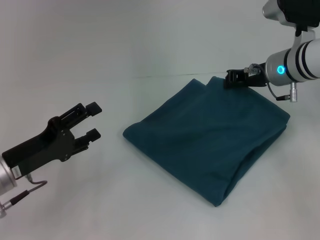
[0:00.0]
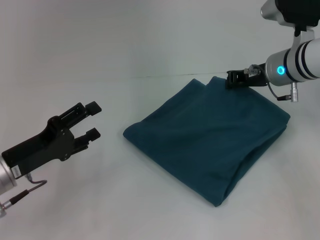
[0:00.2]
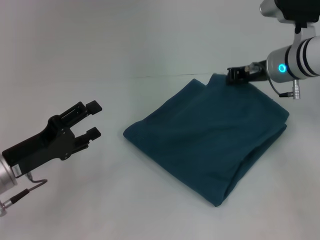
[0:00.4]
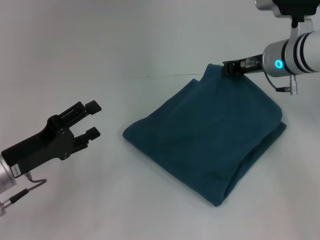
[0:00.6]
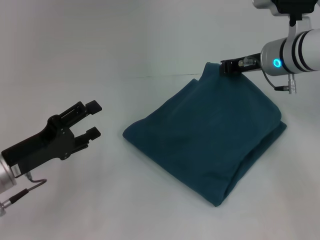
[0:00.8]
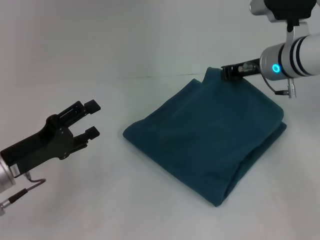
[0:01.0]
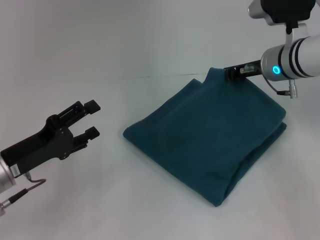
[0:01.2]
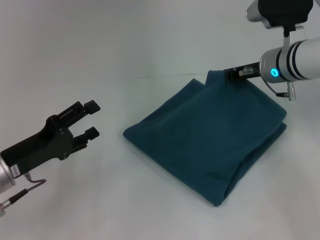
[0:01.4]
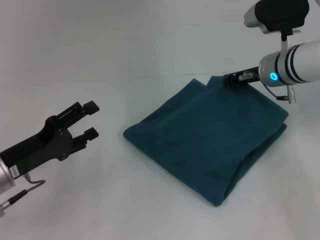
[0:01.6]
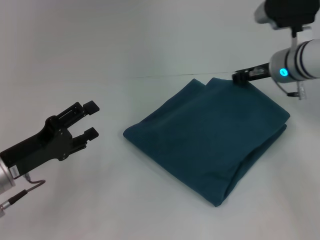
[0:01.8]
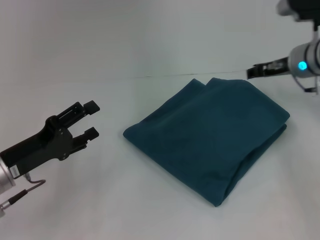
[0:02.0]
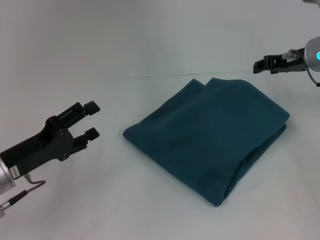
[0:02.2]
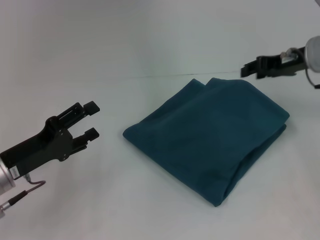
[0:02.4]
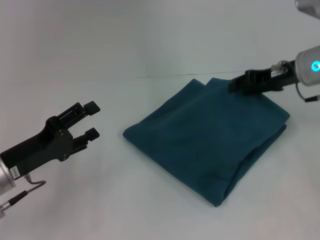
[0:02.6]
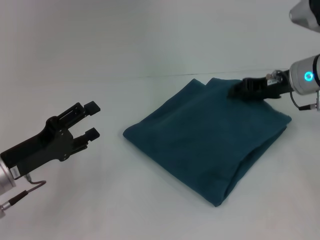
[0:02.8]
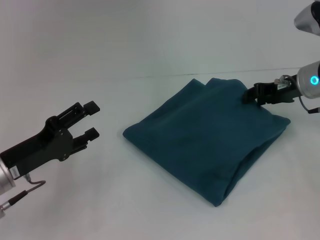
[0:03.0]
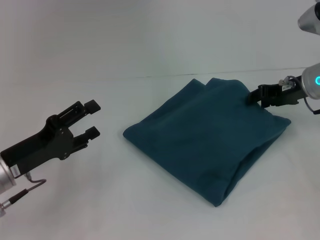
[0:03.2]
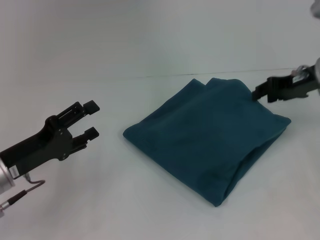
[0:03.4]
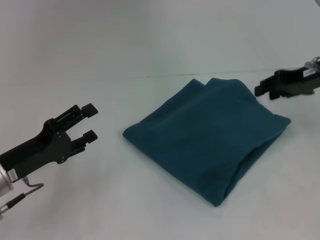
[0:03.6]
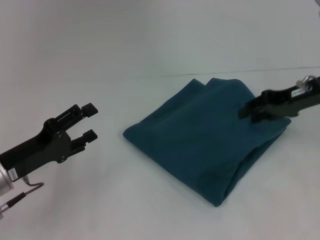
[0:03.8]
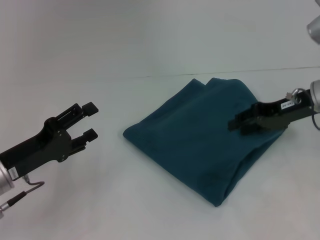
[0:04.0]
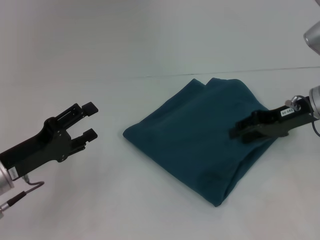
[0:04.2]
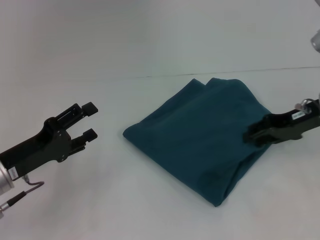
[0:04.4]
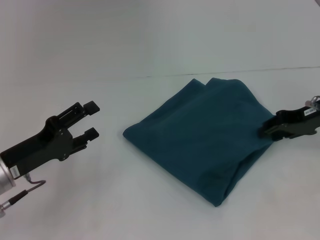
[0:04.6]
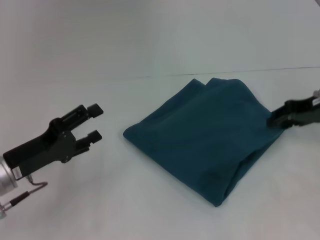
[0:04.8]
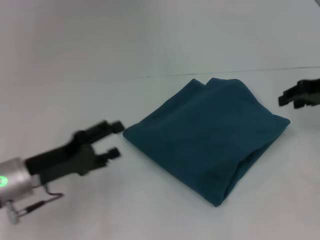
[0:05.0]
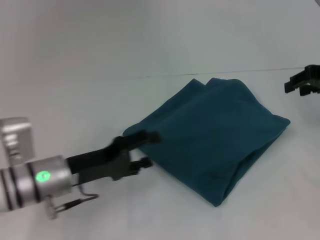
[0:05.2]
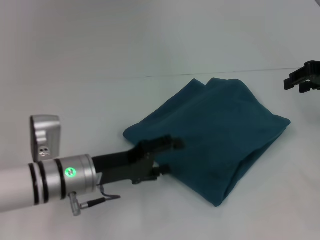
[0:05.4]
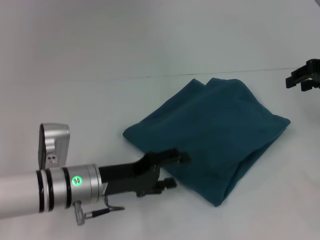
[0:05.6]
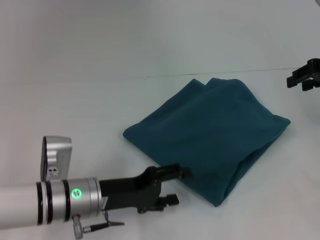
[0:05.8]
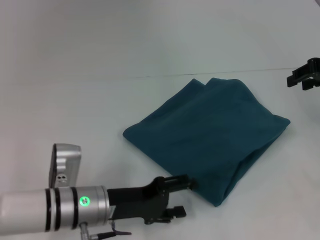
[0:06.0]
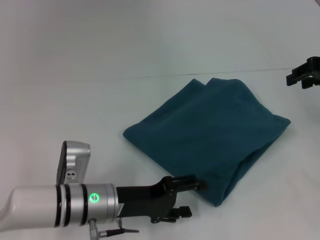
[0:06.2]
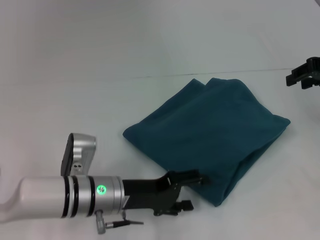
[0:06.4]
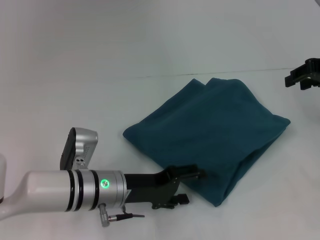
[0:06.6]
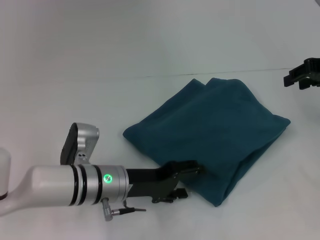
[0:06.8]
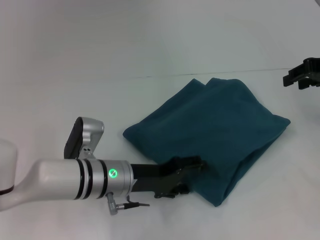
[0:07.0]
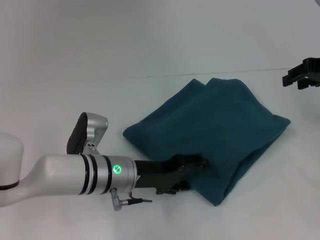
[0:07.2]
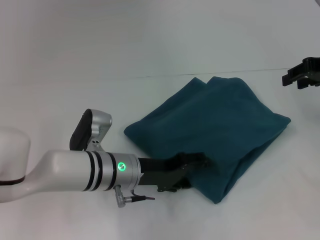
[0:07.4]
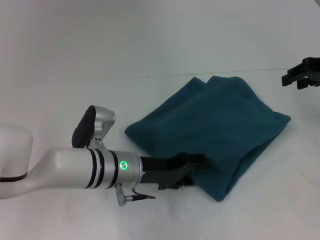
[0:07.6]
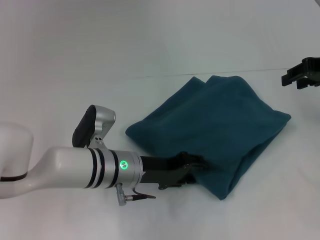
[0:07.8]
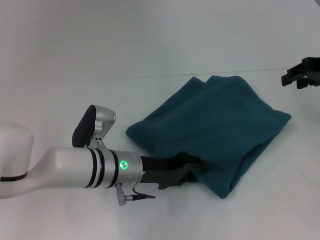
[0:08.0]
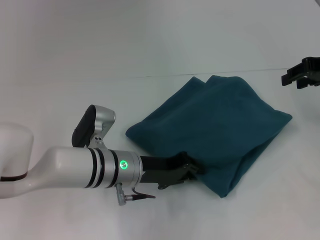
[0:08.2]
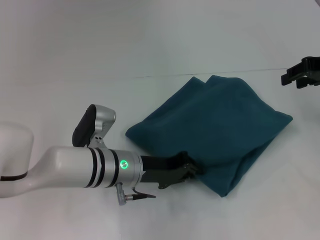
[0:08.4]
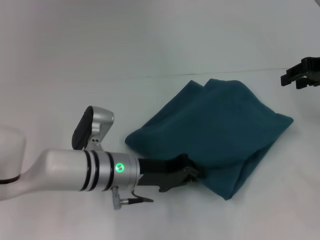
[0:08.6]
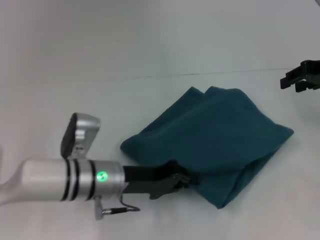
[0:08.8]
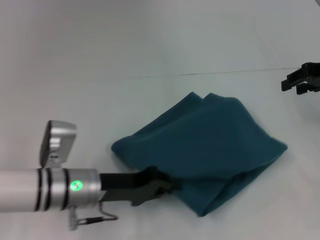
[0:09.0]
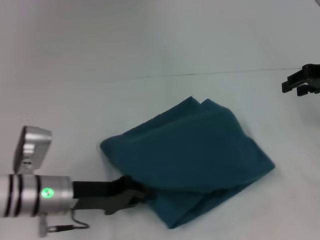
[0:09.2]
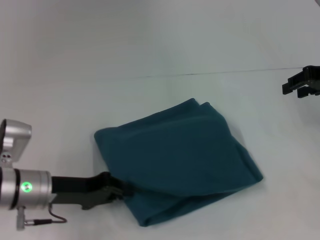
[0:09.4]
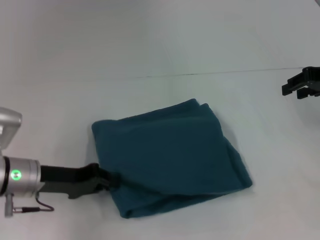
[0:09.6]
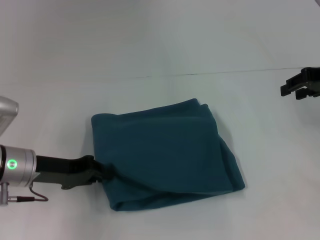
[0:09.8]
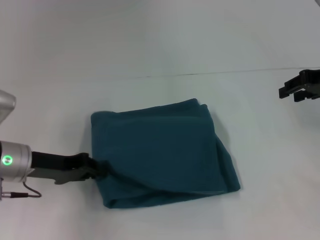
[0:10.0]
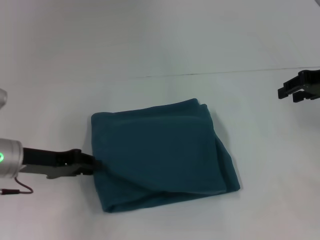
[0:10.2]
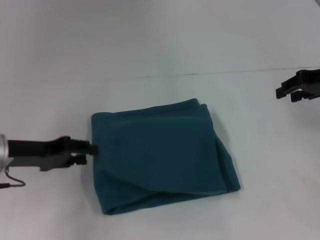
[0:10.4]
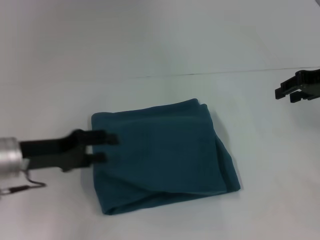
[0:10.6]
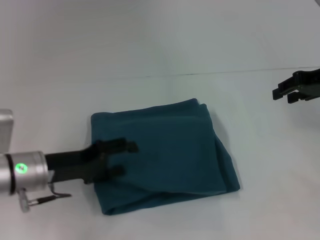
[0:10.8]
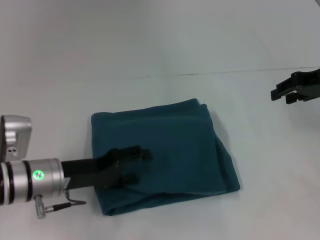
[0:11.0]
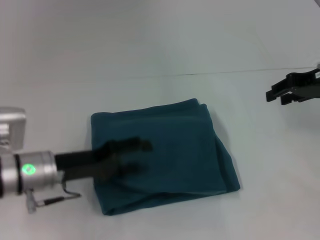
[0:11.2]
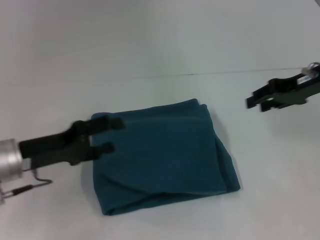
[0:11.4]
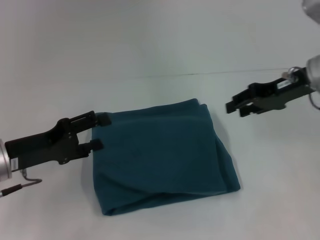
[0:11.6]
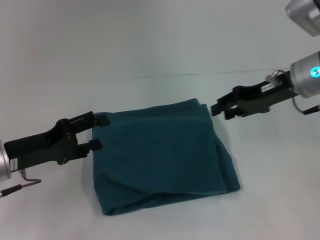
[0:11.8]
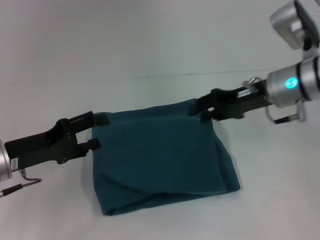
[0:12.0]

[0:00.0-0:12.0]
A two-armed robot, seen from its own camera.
0:00.0 to 0:01.6: The grippers stay close to where they were, moving slightly.
0:01.6 to 0:03.0: The right gripper is displaced to the right by approximately 5 cm, and opens.
0:04.4 to 0:06.0: The left gripper goes about 10 cm to the right; the right gripper goes some 10 cm upward and to the right.
0:06.0 to 0:07.6: The left gripper shifts about 5 cm to the right and forward.
0:07.6 to 0:09.0: The left gripper goes about 5 cm to the left, and closes its fingers.
0:09.0 to 0:10.4: The left gripper heads to the left and upward, covering approximately 15 cm.
0:10.4 to 0:12.0: The left gripper opens its fingers; the right gripper travels to the left and downward by roughly 15 cm.

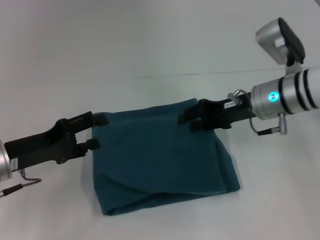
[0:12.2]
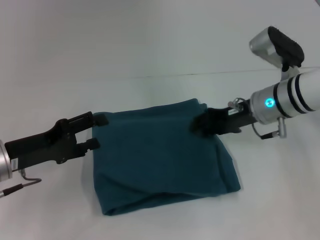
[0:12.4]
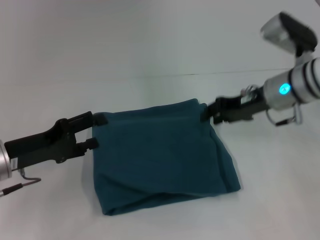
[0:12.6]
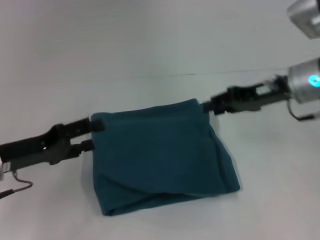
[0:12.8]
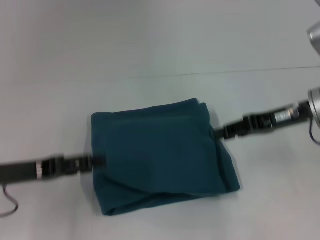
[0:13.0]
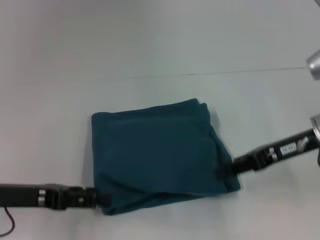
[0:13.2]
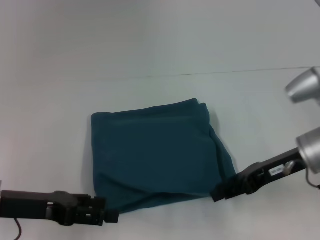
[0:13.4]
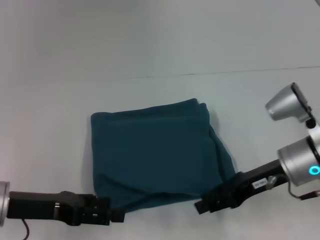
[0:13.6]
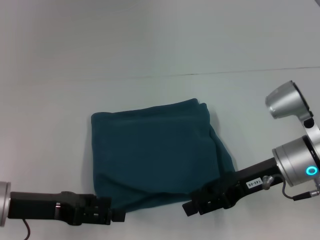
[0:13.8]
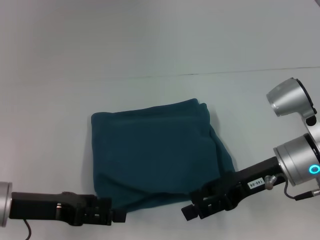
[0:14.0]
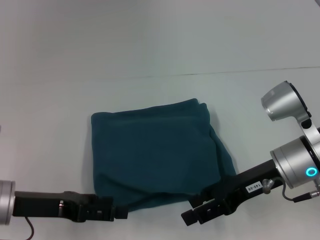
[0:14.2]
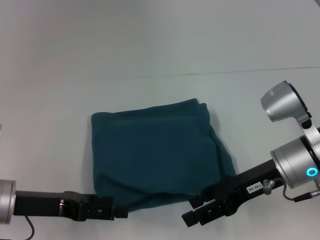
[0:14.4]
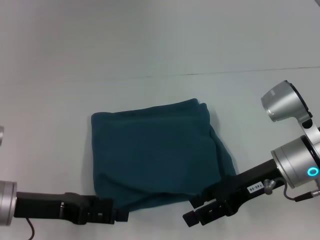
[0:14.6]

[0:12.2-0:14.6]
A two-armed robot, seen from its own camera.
0:12.2 to 0:13.4: The right gripper travels backward by about 5 cm.
0:13.4 to 0:14.6: The grippers move only a little.
